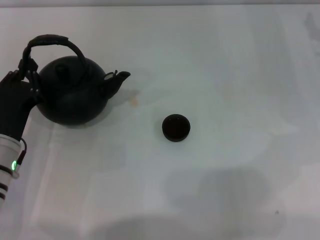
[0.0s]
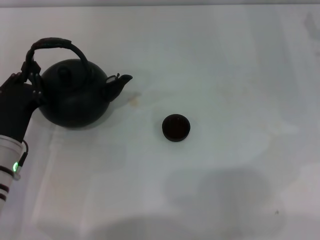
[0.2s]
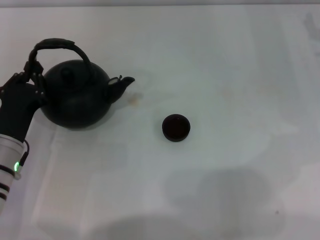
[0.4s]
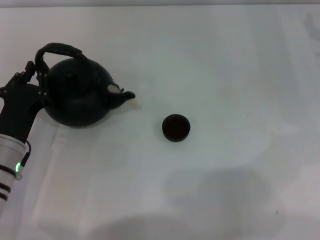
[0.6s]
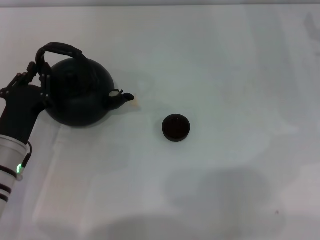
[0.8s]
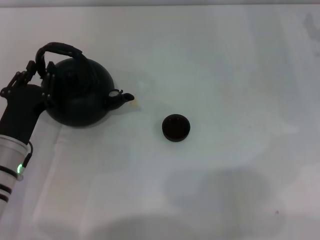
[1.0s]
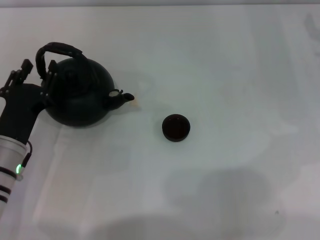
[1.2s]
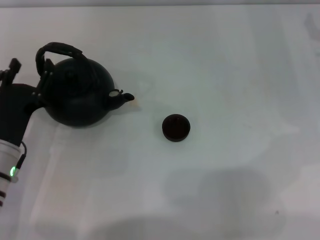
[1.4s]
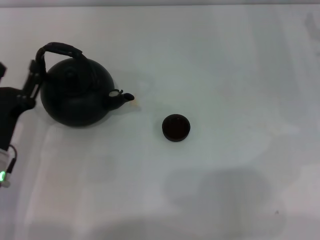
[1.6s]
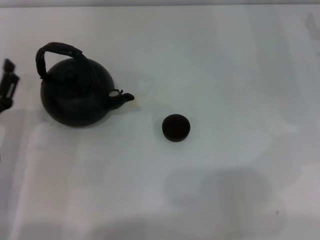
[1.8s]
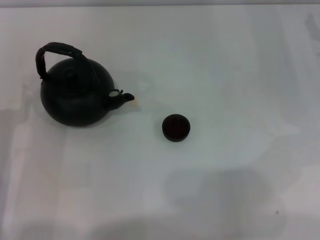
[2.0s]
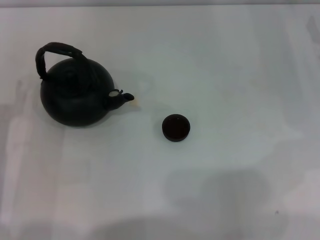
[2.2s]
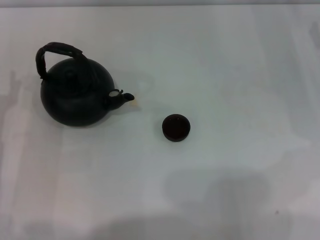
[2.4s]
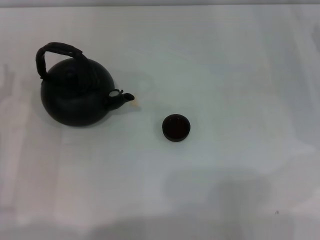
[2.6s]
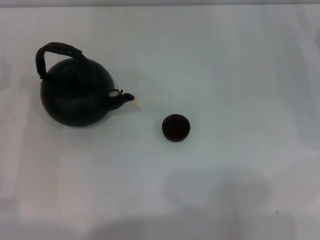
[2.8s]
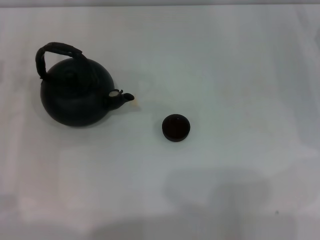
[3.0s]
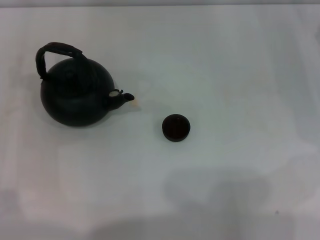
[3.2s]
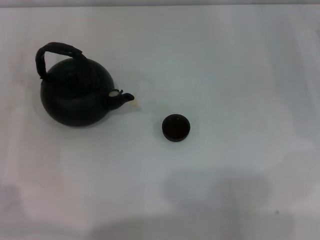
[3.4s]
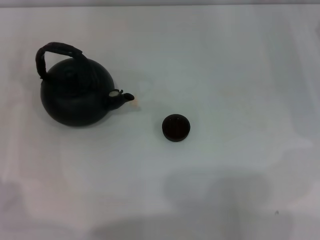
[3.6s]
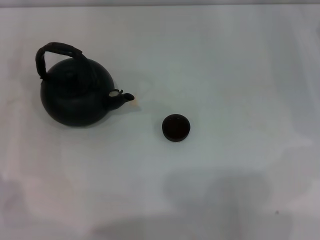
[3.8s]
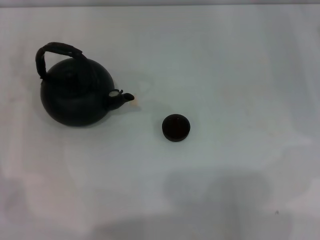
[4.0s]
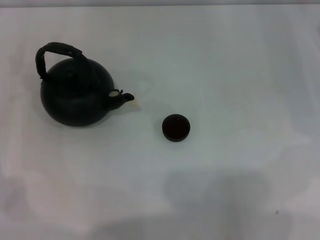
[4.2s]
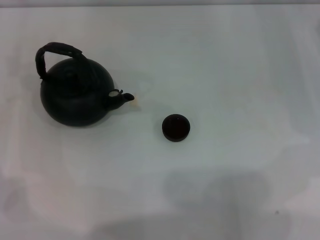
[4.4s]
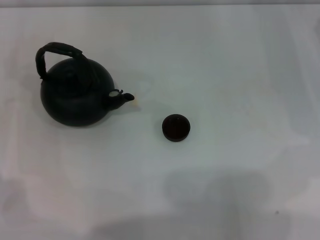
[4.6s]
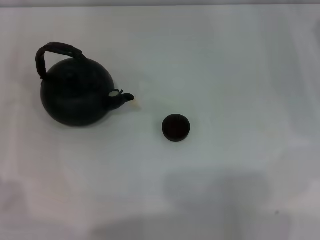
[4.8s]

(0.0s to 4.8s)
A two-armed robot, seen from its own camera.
Task of the whole recording: Grasp the handle of the teapot with one hand and pour tea into the teacup.
0.0s - 1.6s: The left gripper opens up.
1.6s - 3.2s: The left gripper moves to the left and forward, about 10 cm.

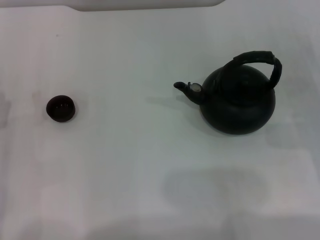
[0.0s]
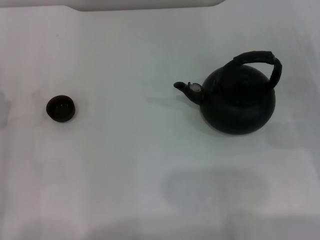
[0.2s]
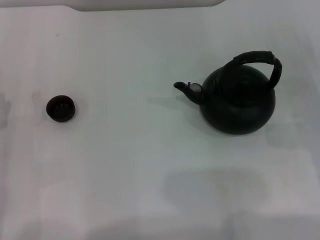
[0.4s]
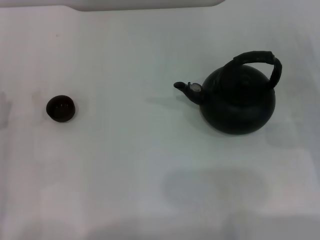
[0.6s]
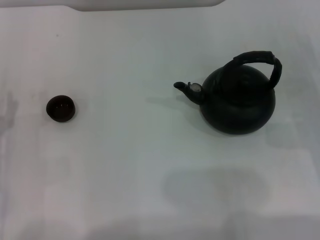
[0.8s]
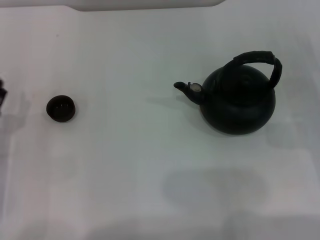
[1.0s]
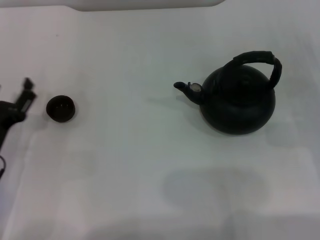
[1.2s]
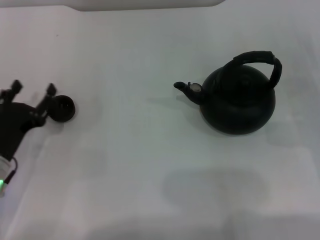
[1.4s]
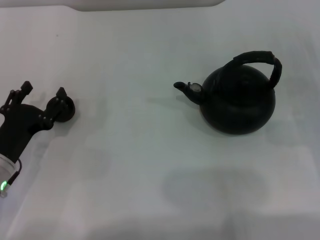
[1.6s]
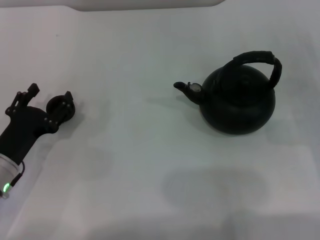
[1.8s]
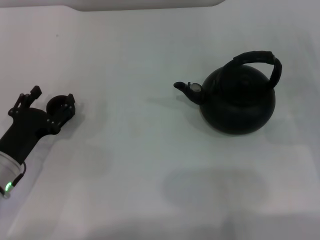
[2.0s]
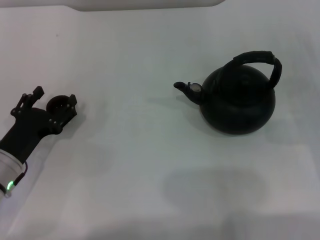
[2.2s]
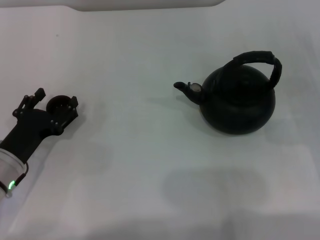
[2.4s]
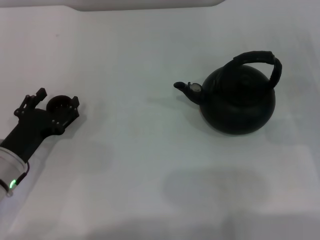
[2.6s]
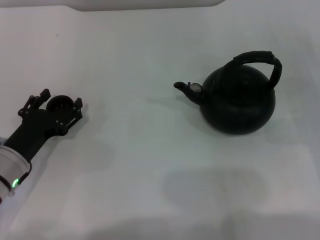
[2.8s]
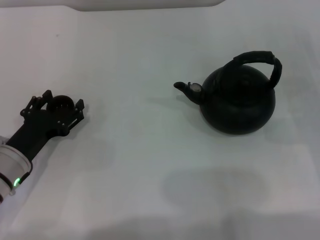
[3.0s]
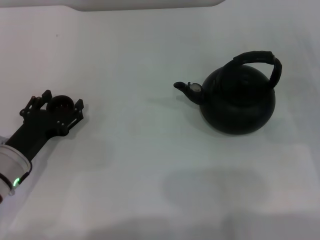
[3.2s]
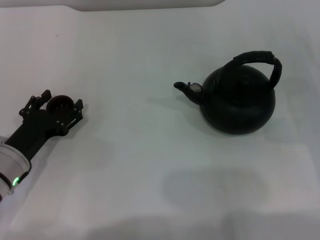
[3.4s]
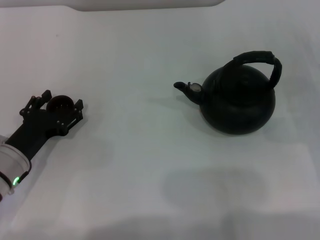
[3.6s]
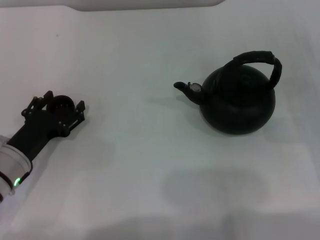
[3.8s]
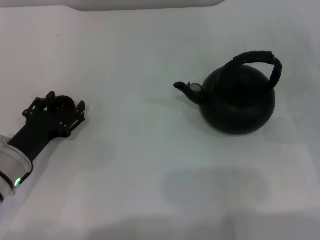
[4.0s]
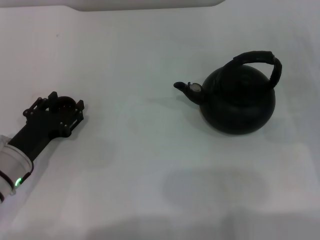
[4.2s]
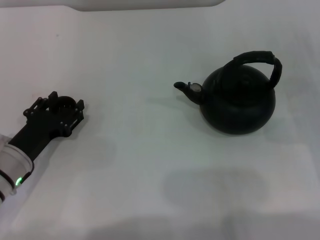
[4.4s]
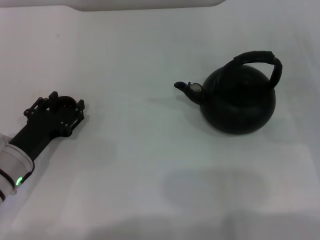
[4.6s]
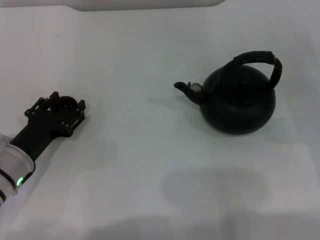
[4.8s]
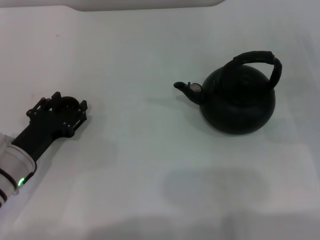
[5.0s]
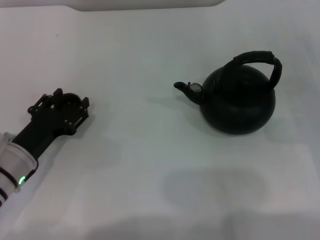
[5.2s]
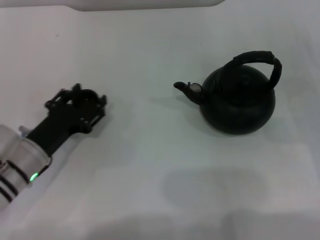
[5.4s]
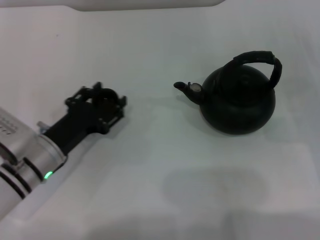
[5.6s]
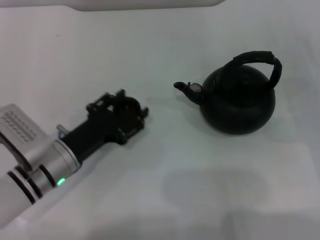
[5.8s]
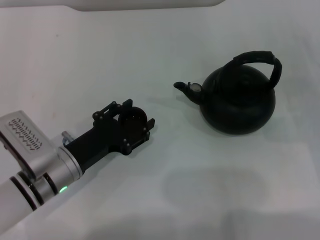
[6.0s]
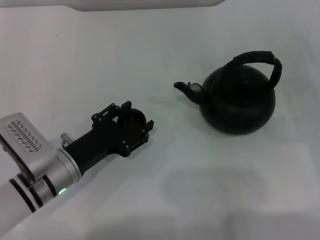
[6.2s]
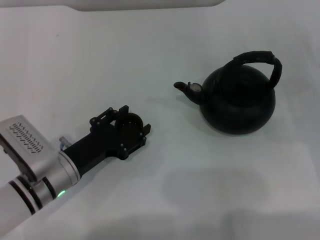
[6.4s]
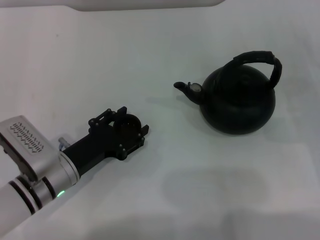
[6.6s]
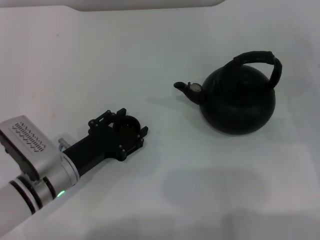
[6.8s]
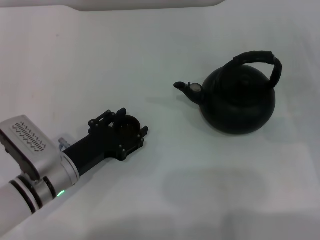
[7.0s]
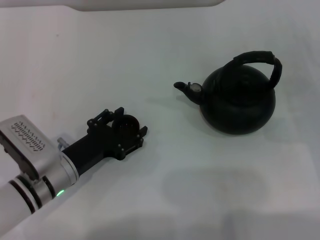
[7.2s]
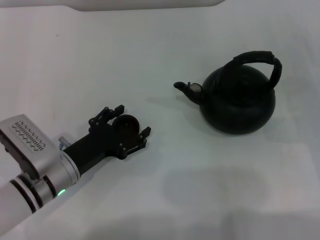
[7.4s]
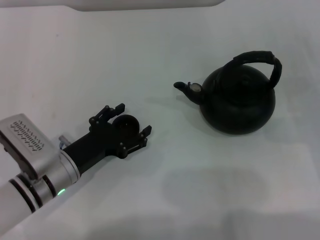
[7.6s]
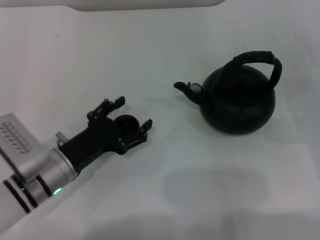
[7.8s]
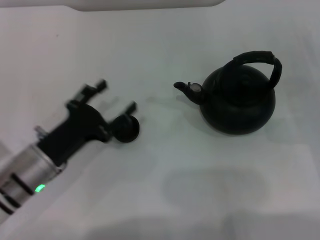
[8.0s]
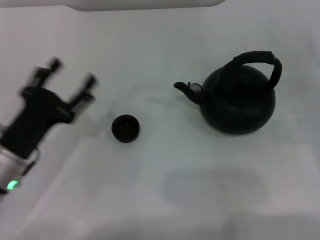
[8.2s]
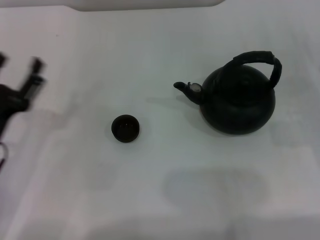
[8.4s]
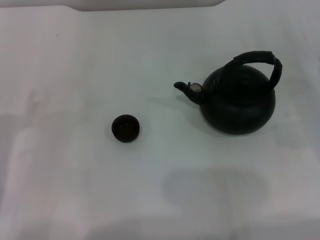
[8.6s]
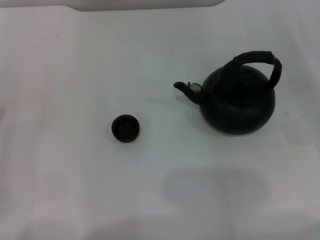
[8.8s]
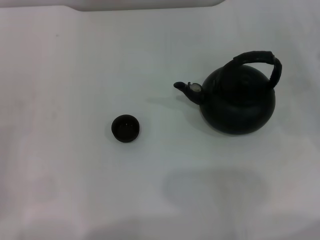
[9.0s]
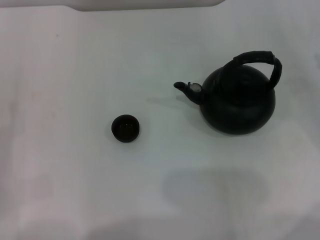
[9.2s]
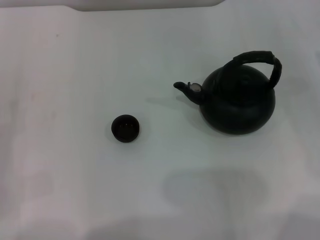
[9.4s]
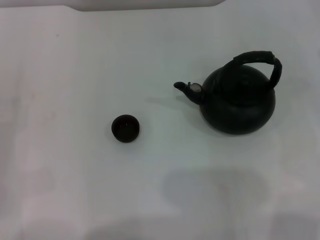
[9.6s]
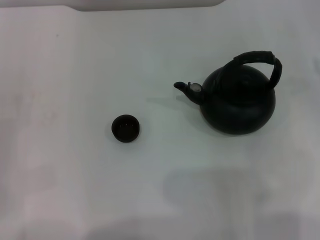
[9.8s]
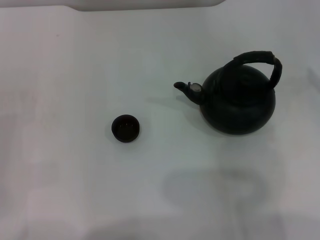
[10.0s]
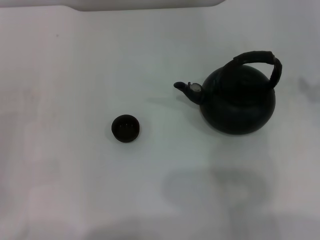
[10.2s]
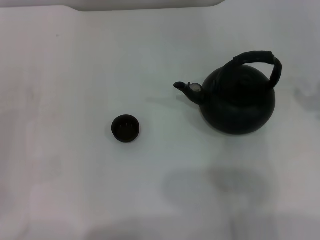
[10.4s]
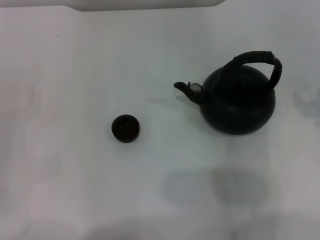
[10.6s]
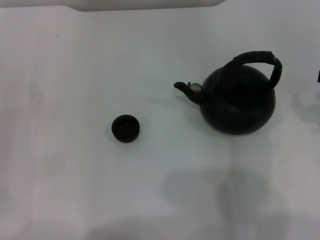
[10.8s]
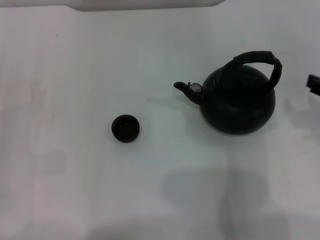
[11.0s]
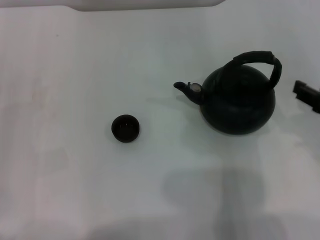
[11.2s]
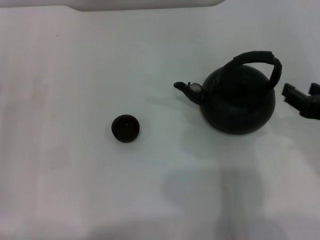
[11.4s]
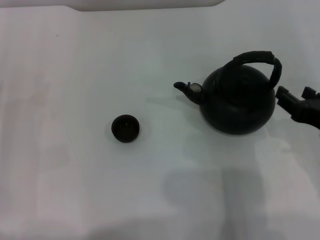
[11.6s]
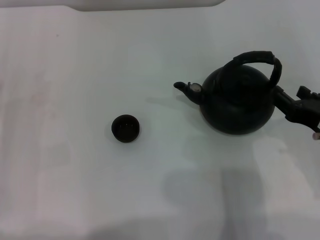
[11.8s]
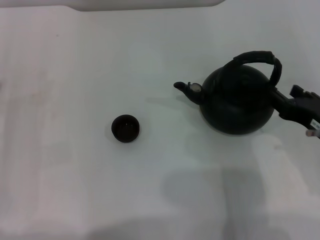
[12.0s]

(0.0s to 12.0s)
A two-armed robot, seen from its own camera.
Task of the whole recording: Grasp the handle of the teapot with one hand and pour tea into the teacup.
Step, 0.0s - 5.2s: Pick up the teacup with the left gripper.
Step, 5.4s - 8.0s: Place the teacup in the center of view with the left gripper.
1.6s - 3.0s: There are only small adjustments of the grippers.
3.0s - 4.4s: The left gripper closes.
4.4s - 6.0s: The left gripper is displaced to the right by approximately 5 cm.
6.0s - 7.6s: The left gripper opens.
7.6s - 9.0s: The left gripper is displaced to the left by roughly 15 cm, while the right gripper shifts approximately 5 cm upward.
10.4s - 12.0s: The right gripper shifts some 15 cm downward, to the left and backward.

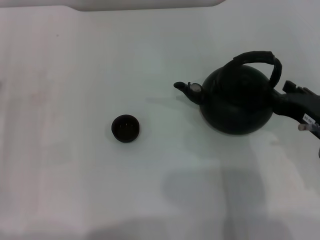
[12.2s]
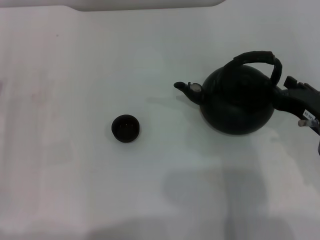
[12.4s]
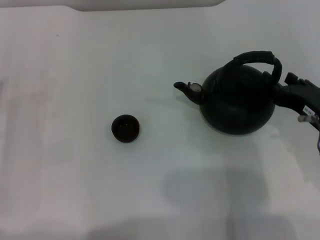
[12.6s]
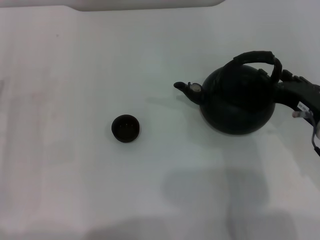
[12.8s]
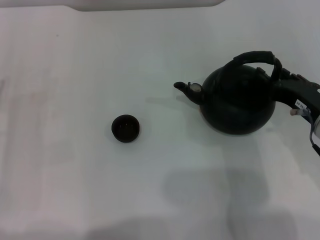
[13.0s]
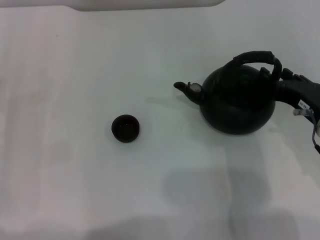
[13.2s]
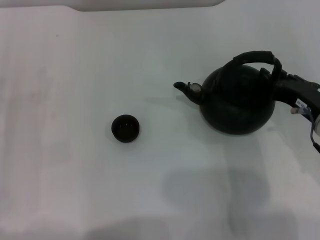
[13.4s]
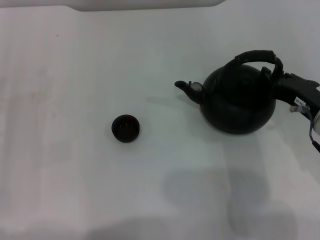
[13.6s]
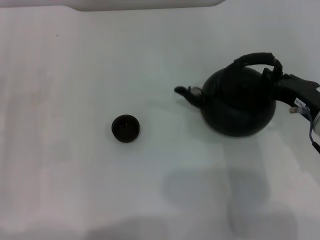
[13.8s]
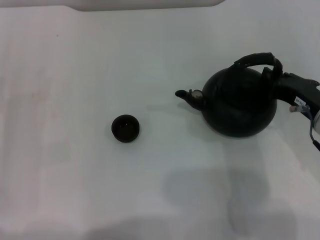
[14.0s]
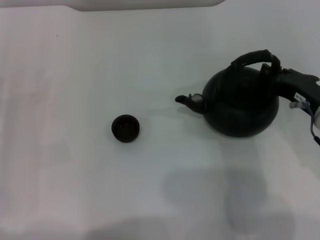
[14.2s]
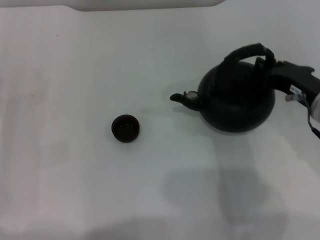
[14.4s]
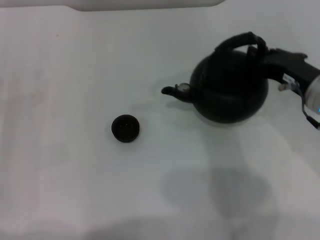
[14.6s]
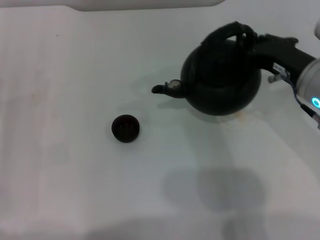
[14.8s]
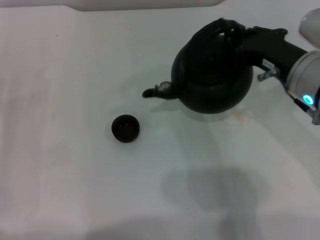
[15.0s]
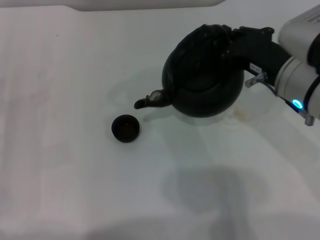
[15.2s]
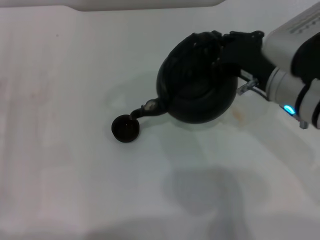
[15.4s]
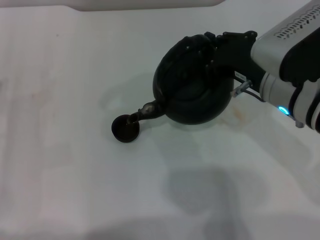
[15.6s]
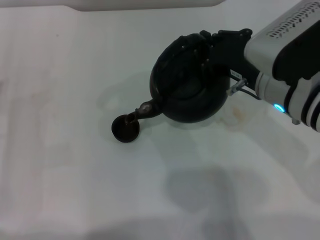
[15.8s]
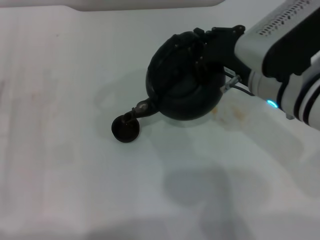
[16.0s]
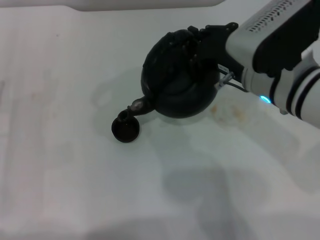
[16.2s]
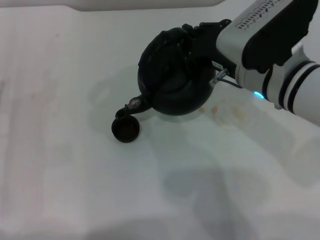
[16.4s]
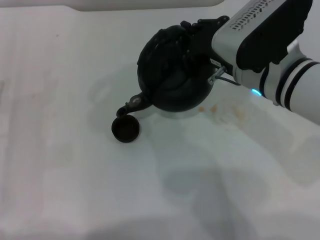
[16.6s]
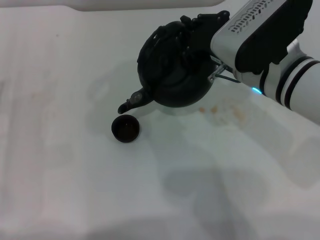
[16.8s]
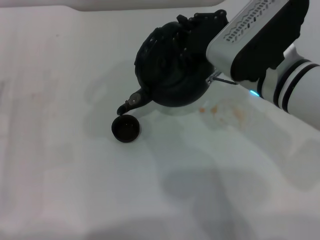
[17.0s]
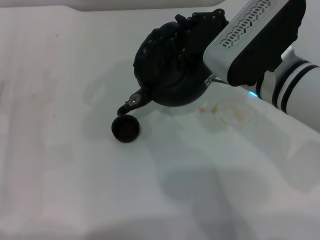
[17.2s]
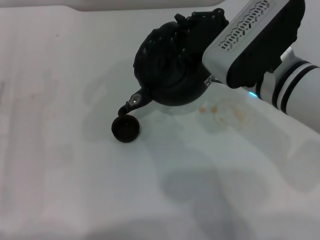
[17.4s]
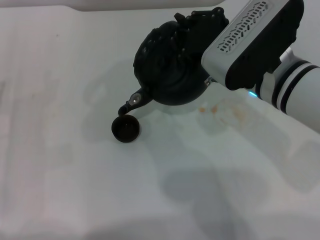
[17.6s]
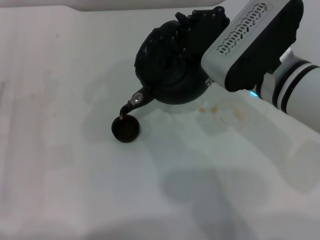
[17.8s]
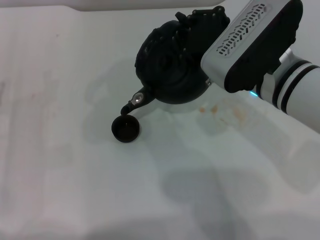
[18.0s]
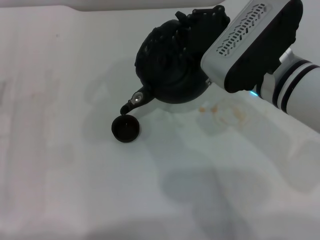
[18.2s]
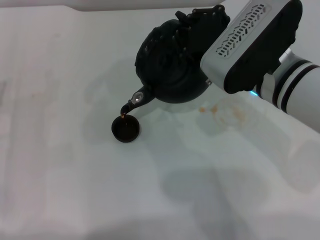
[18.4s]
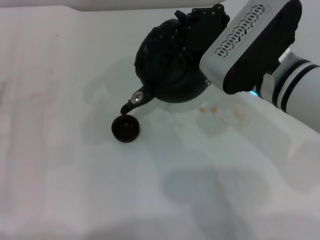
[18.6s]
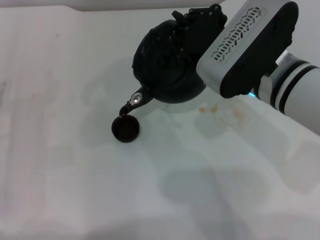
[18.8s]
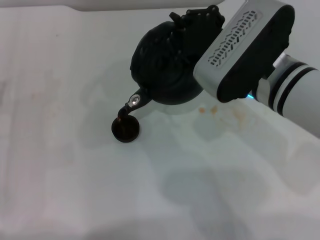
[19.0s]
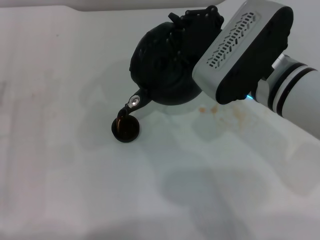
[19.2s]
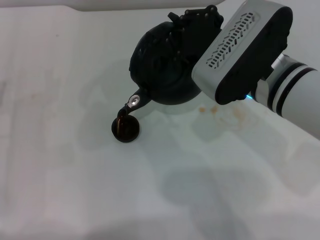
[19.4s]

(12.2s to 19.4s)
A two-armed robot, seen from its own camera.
Task of the whole recording: Grasp the handle of the teapot with one hand and pour tea into the teacup.
Step, 12.2s - 14.6s: Pick up the teapot with the right gripper.
12.2s - 13.6s: There are only small adjustments of the grippers.
13.6s - 15.0s: The right gripper travels upward by roughly 5 cm, and closes up.
15.0s - 16.6s: The right gripper goes roughly 5 cm to the left.
16.6s - 18.0s: The grippers stay close to where they were, moving slightly.
18.0s - 19.4s: Neither gripper changes place.
